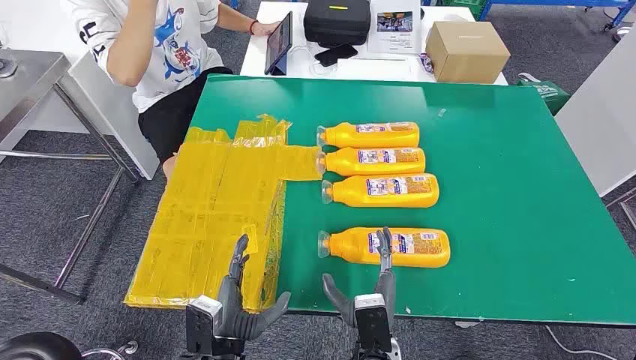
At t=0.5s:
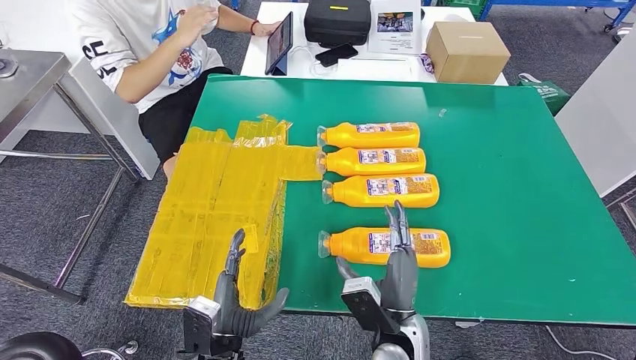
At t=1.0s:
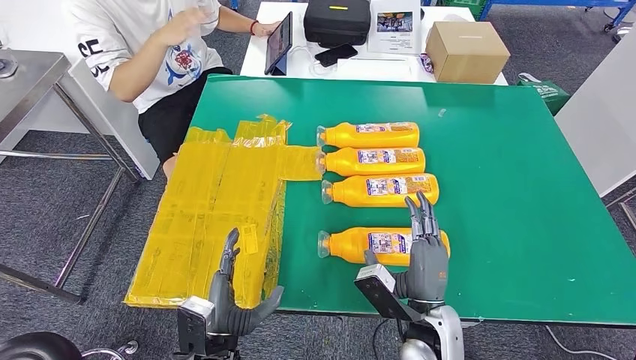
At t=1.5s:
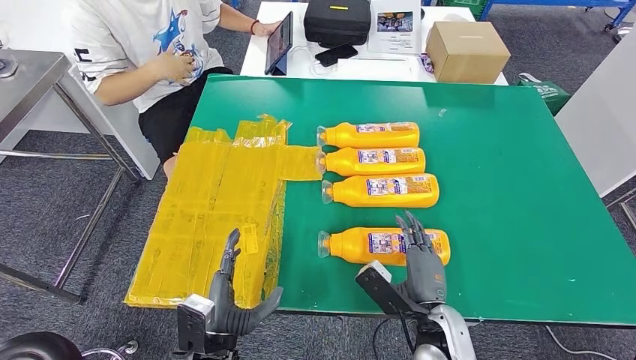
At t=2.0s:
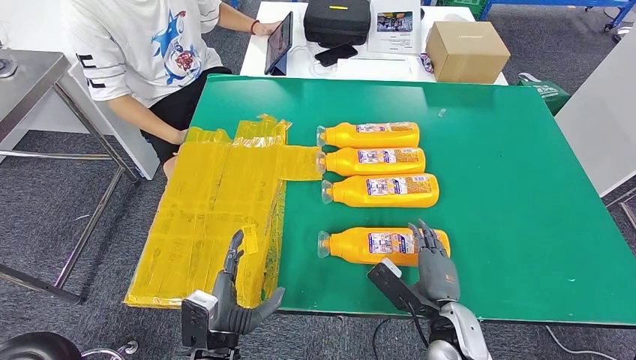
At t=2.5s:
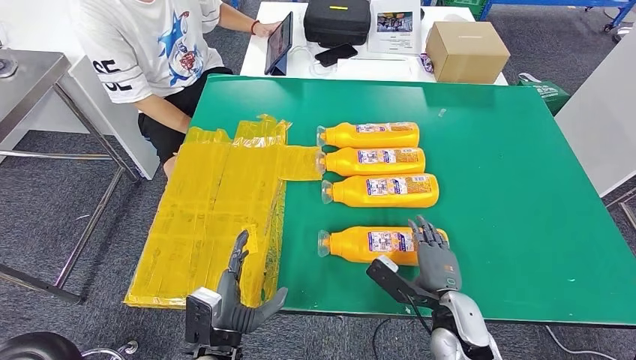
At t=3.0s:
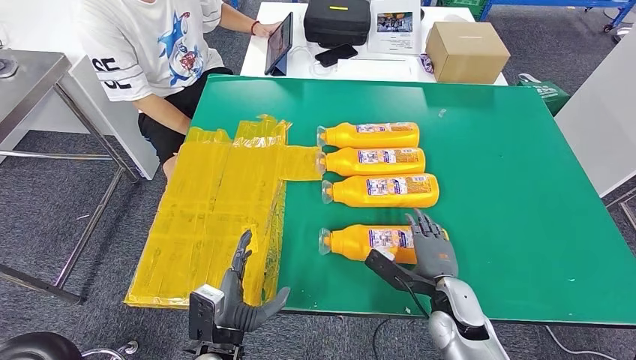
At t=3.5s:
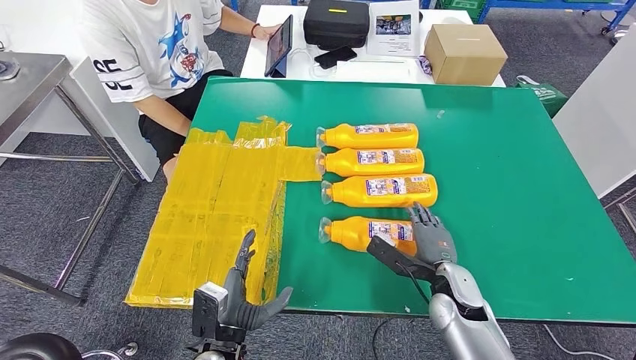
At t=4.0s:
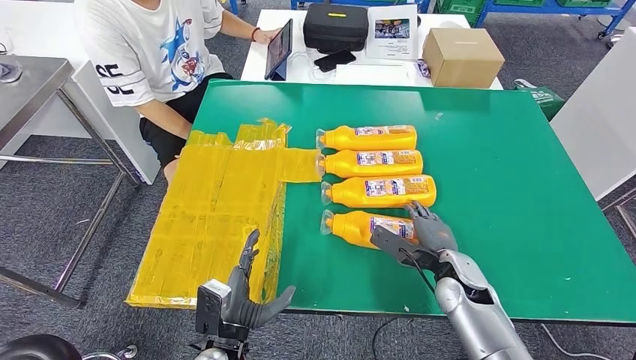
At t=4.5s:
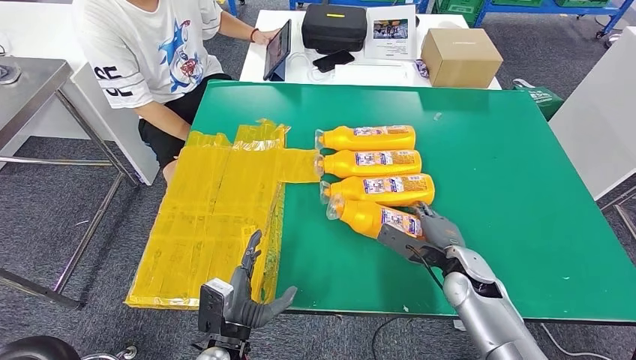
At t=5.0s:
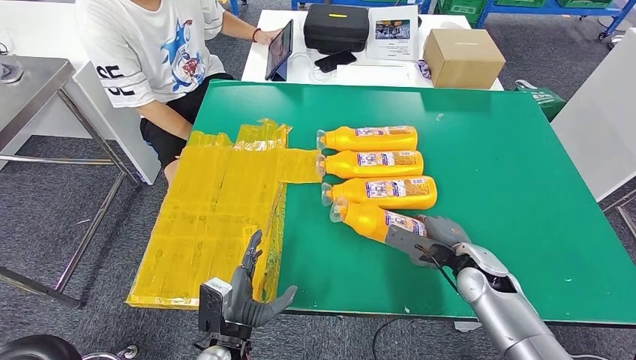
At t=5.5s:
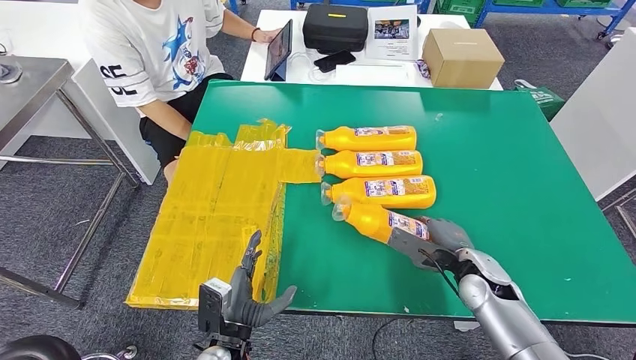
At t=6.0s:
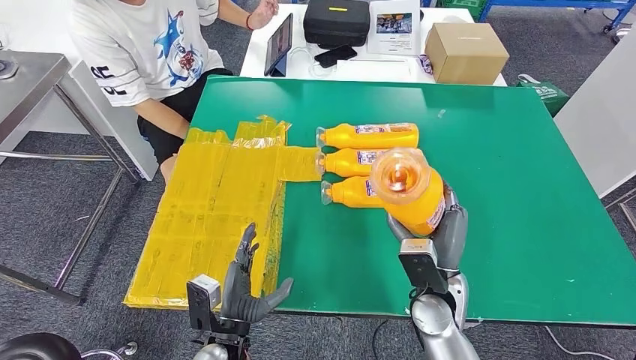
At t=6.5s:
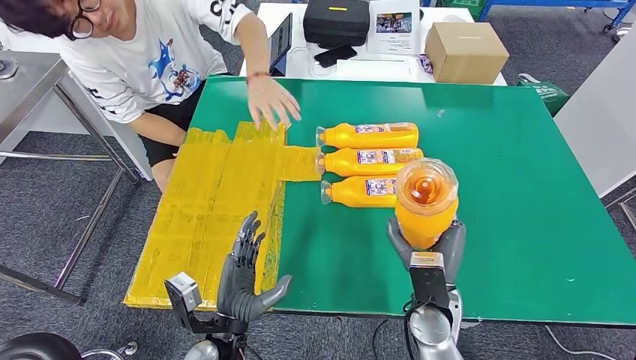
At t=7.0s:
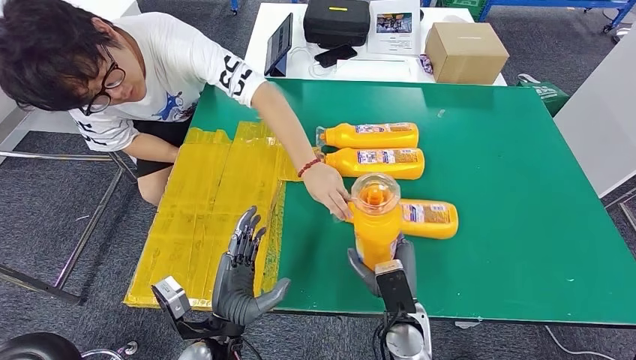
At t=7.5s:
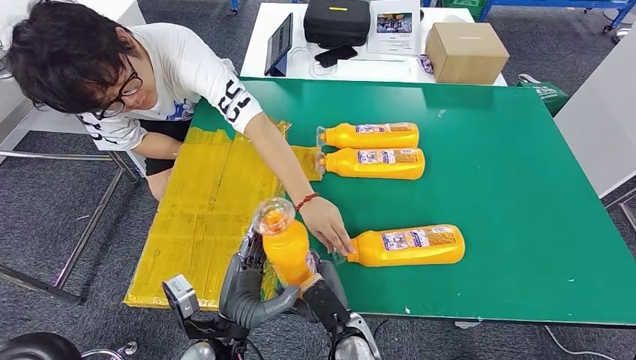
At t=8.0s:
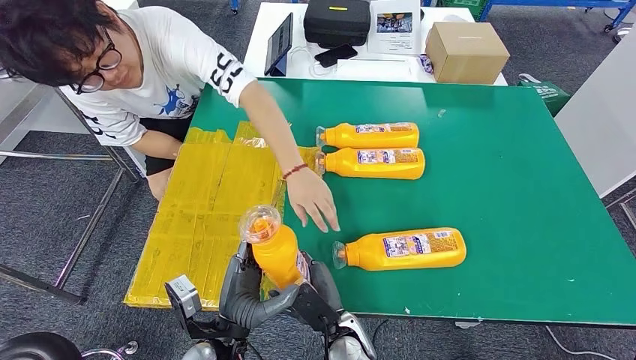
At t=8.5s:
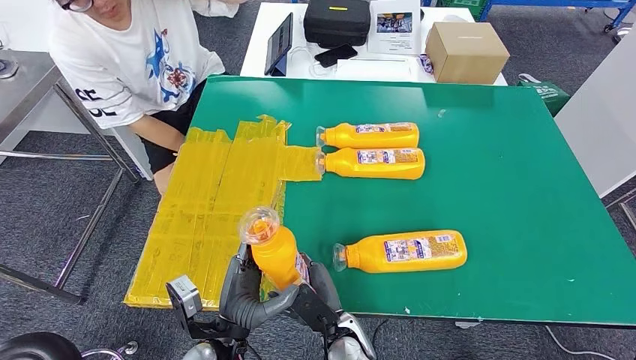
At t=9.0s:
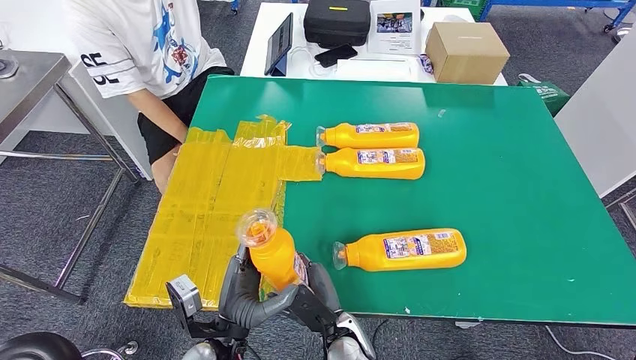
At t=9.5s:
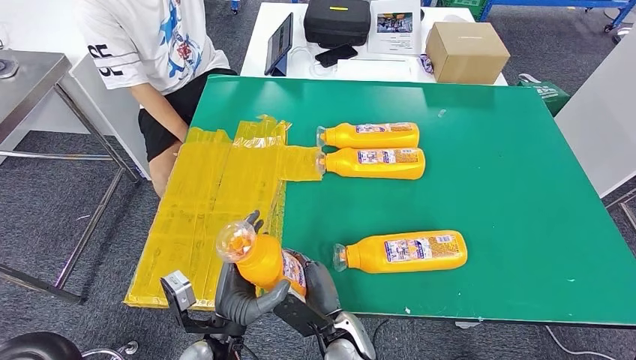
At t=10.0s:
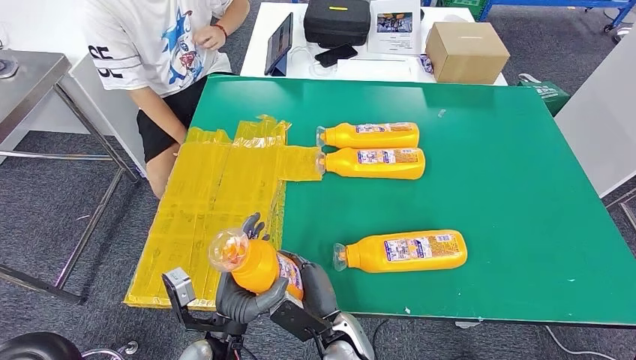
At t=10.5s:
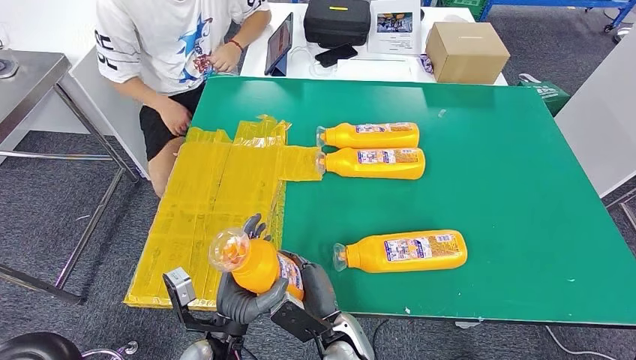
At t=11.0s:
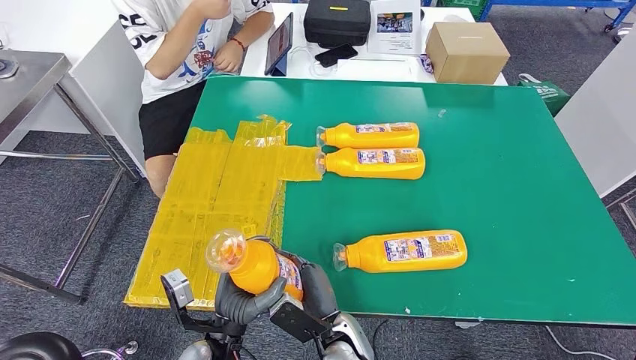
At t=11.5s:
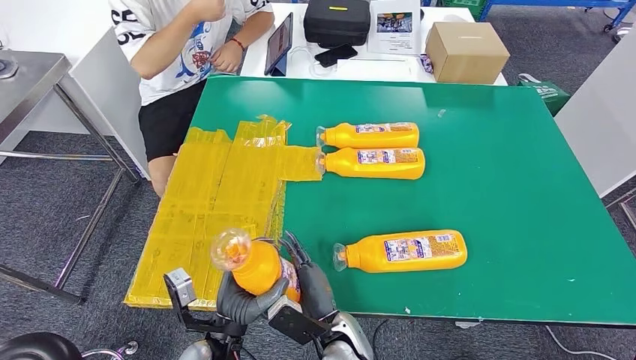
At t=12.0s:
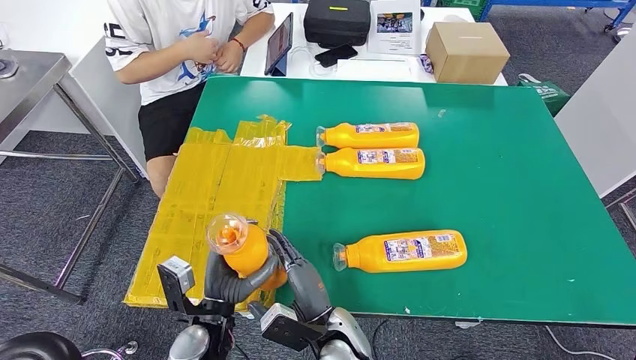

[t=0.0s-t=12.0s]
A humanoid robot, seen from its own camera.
Step, t=0.0s to t=5.0s: Take the fast-moving consumer goods bottle from the table.
t=8.0s to t=12.0s: The hands move only a little.

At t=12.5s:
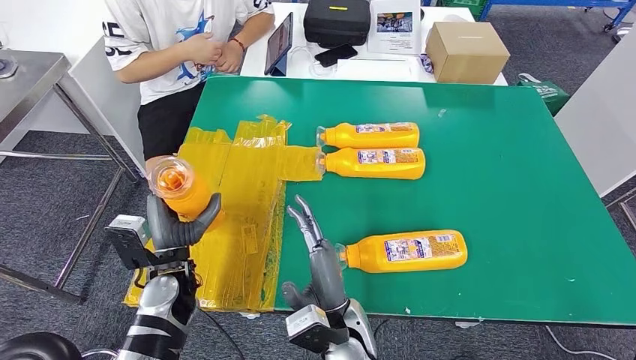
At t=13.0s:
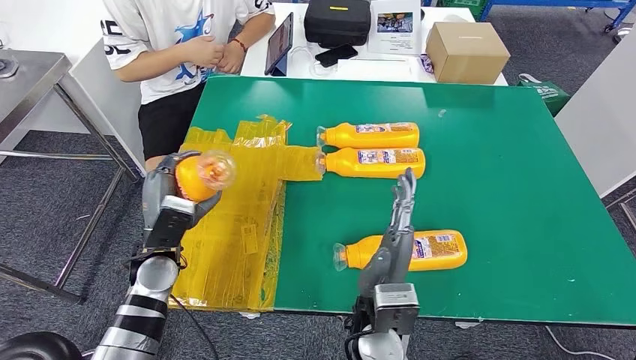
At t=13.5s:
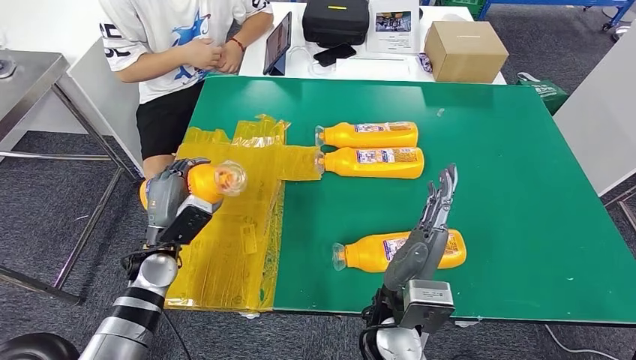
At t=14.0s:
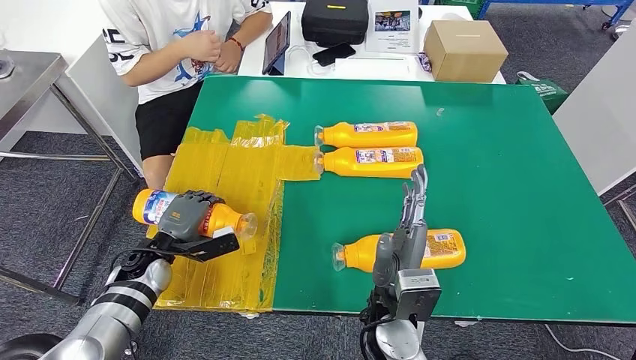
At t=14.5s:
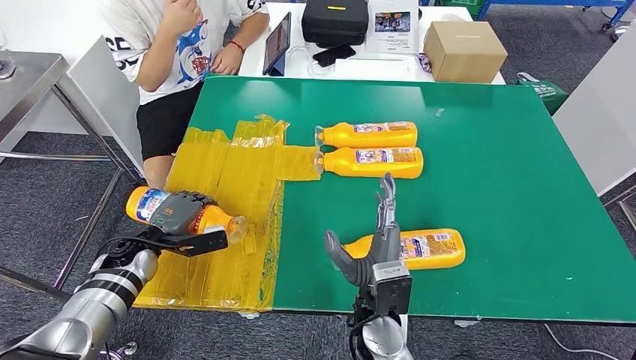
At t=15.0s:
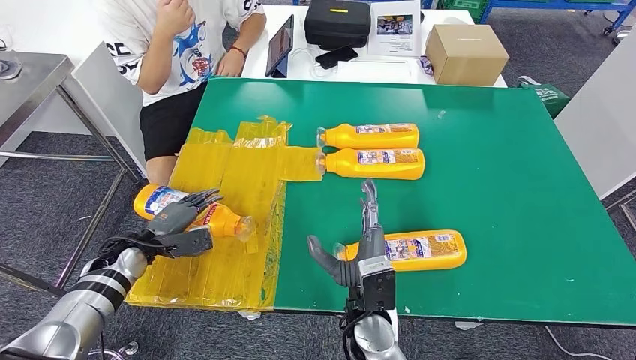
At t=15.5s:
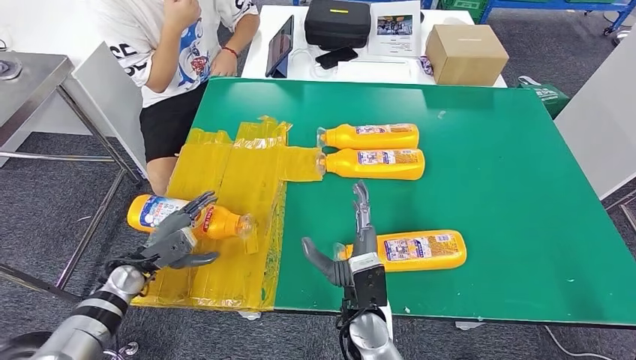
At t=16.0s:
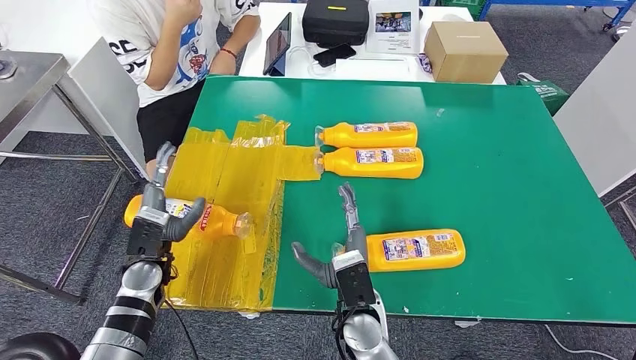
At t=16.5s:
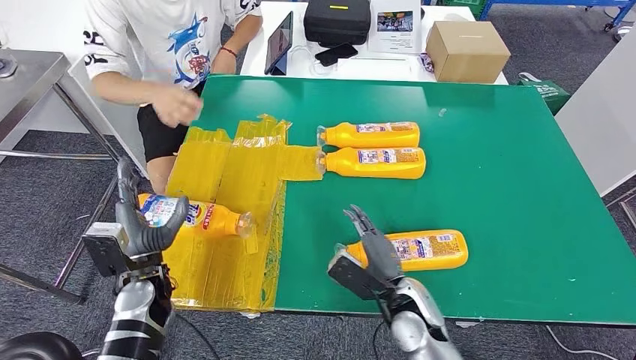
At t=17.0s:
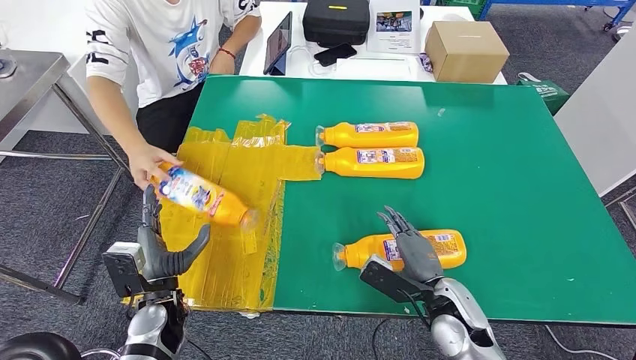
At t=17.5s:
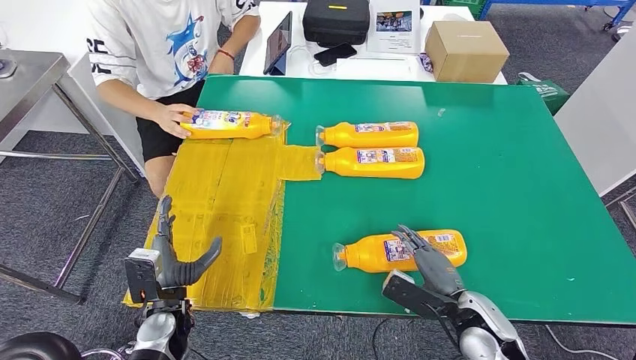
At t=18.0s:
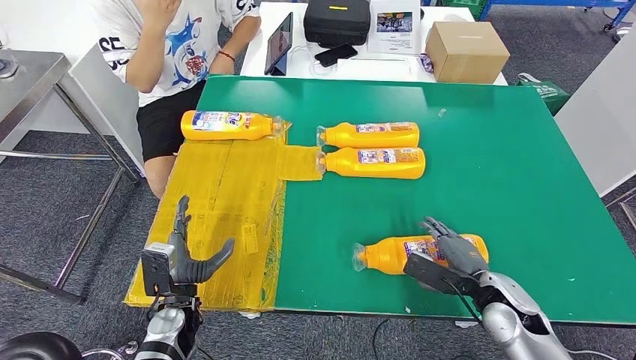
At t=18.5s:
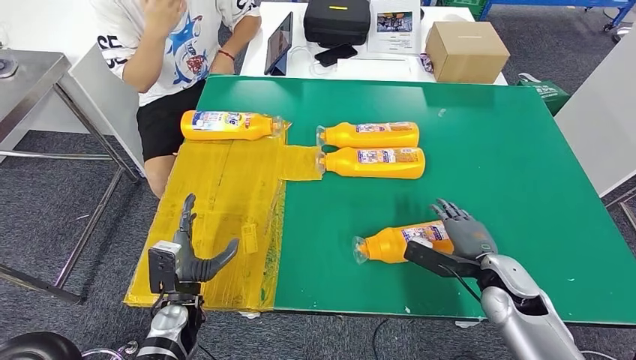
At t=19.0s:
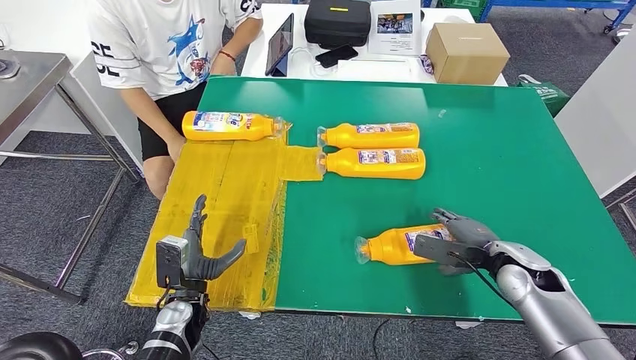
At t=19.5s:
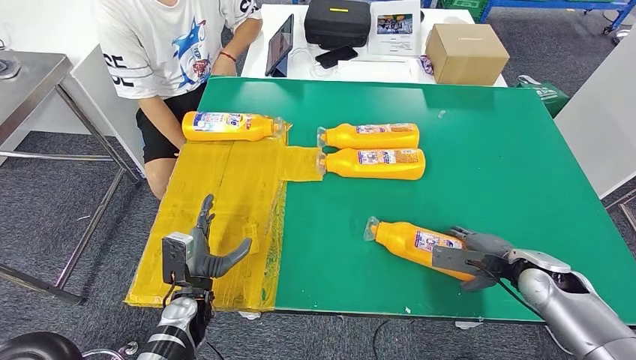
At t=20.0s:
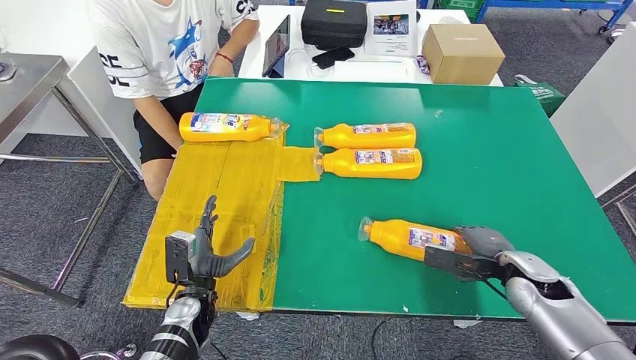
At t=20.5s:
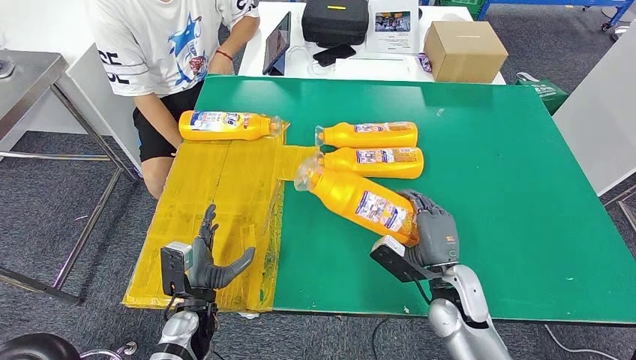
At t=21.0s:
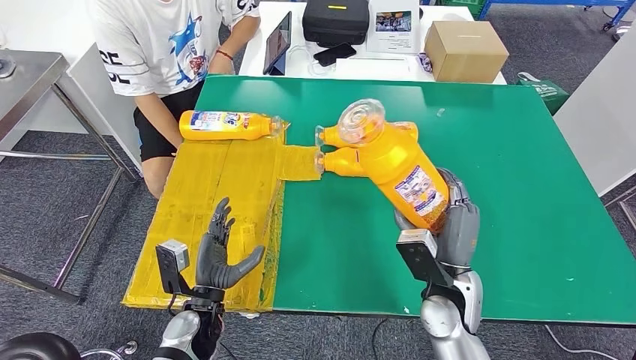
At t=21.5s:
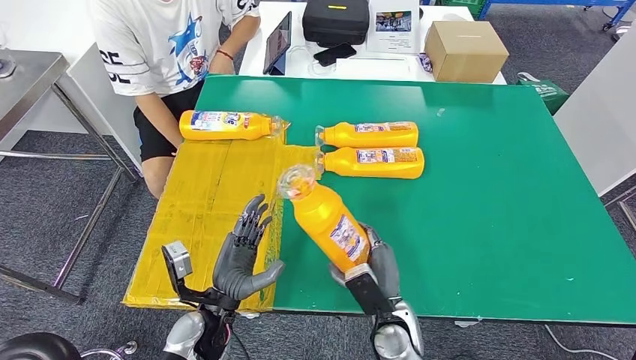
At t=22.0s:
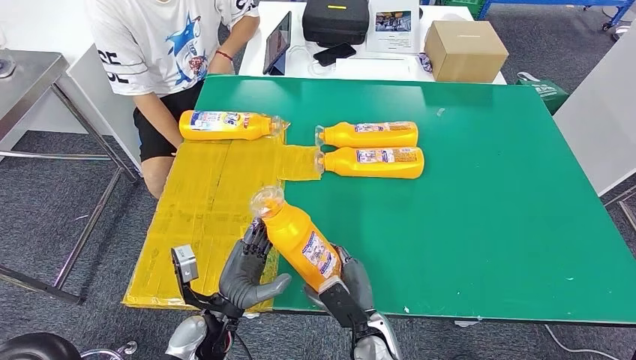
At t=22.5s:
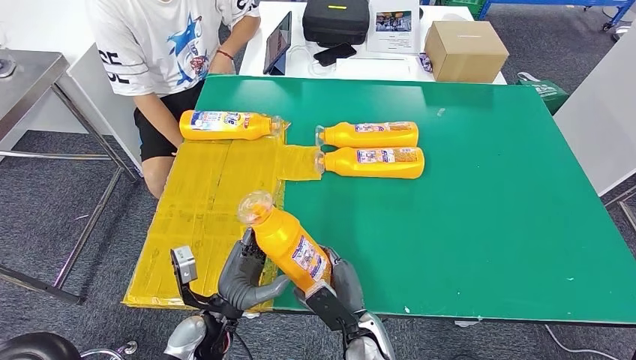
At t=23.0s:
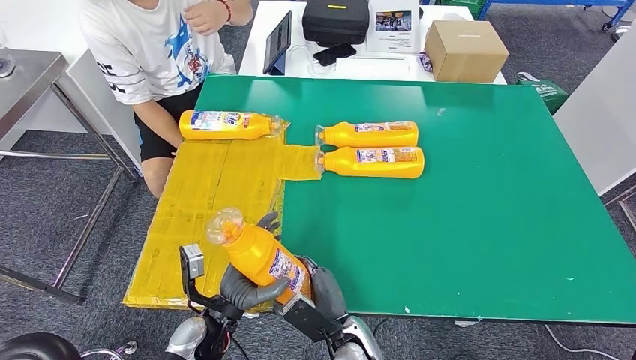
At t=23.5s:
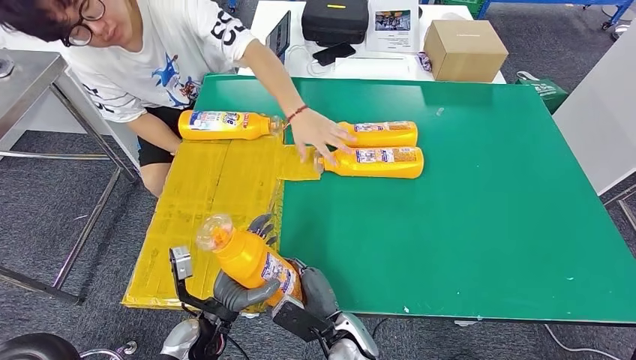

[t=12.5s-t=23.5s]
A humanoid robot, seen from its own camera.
Step, t=12.5s to t=15.5s: Flip the fast-moving consumer goods bottle to the front side.
Step, t=16.0s to t=20.5s: Pick up the fast-moving consumer goods bottle from the table.
t=14.5s to t=16.0s: The left hand is displaced to the right by roughly 5 cm.
t=16.0s to t=18.0s: The left hand moves backward, downward and to the right, roughly 10 cm. The right hand goes approximately 25 cm to the right.
